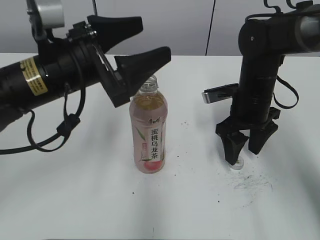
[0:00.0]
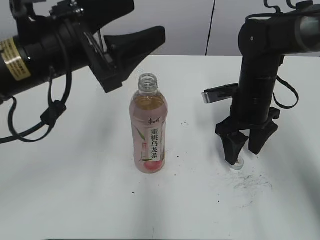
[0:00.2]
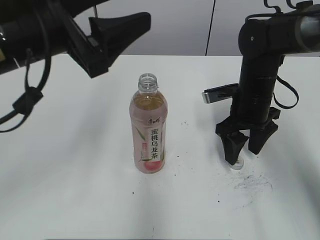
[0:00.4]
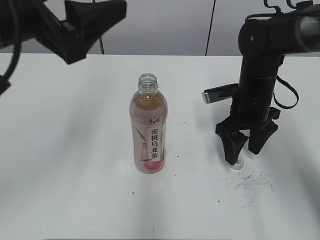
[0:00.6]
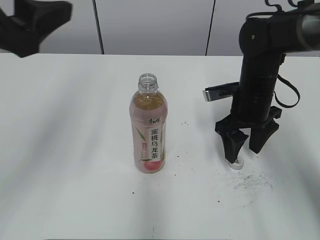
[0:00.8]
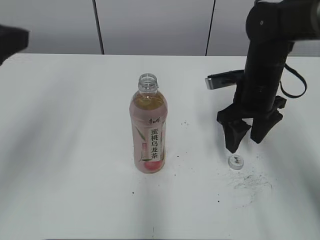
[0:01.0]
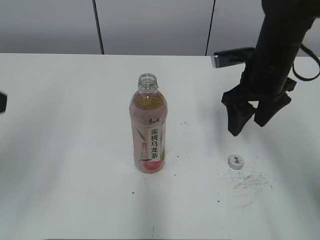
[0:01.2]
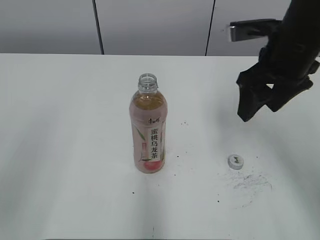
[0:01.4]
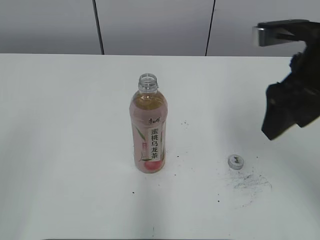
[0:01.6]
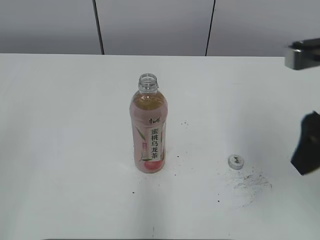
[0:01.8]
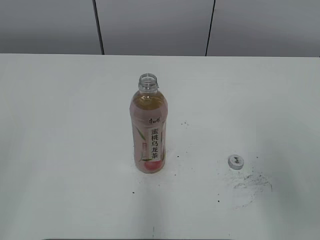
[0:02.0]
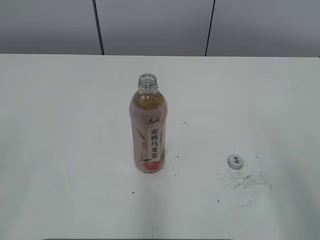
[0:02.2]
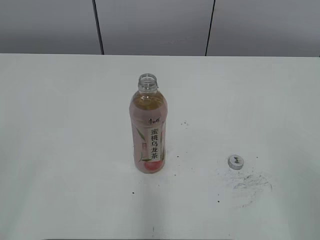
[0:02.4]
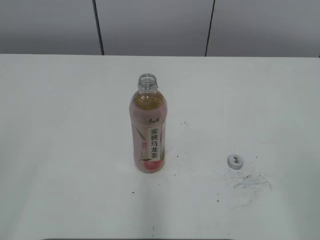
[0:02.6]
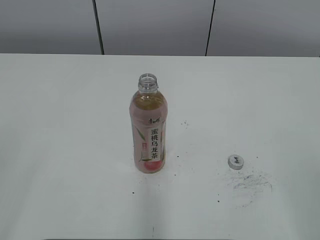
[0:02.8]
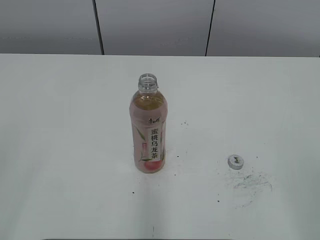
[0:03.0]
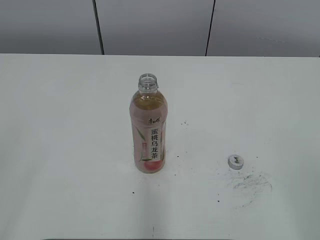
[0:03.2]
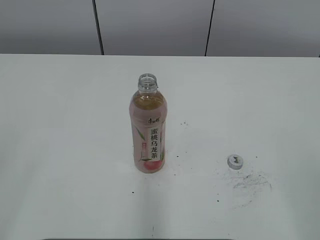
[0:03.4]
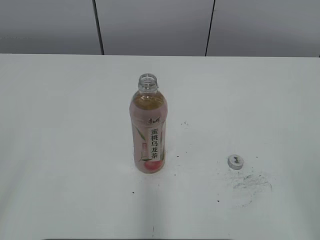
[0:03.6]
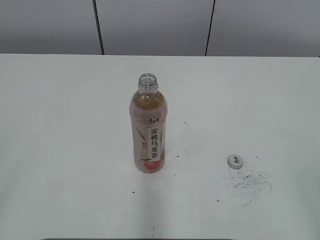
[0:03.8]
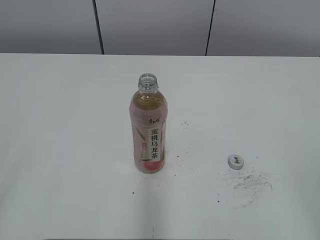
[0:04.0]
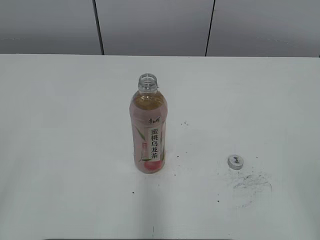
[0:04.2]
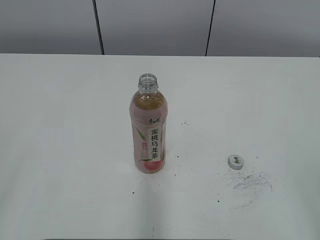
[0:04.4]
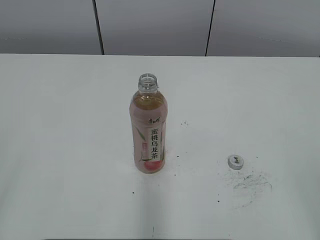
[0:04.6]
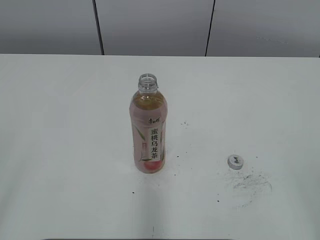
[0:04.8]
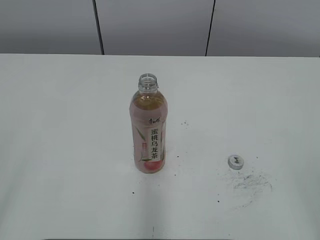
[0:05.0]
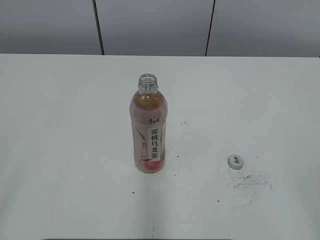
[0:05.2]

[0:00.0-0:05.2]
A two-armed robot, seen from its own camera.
0.0 to 1.8 s: The left gripper shifts about 30 cm backward, to the left and upward. The right gripper moves upward and backward, some 20 cm.
1.8 to 3.4 s: The right gripper is displaced backward by roughly 20 cm.

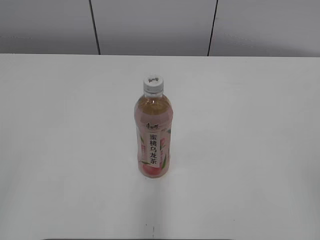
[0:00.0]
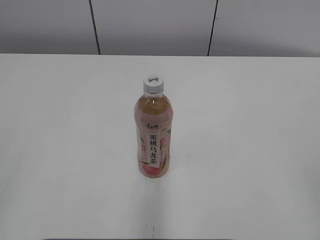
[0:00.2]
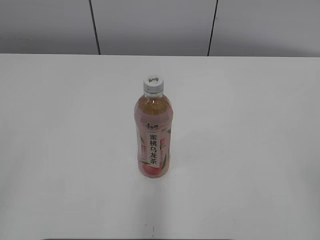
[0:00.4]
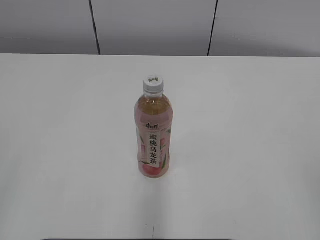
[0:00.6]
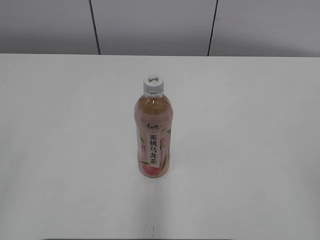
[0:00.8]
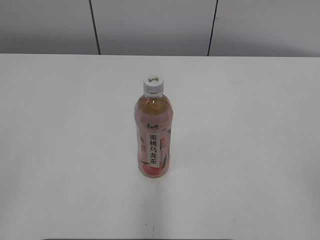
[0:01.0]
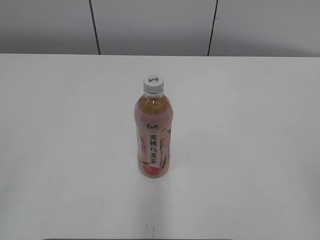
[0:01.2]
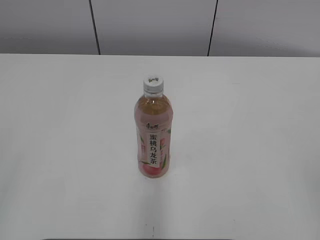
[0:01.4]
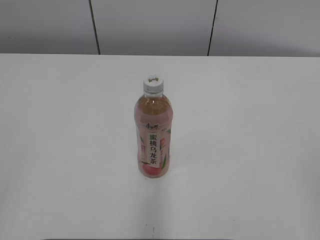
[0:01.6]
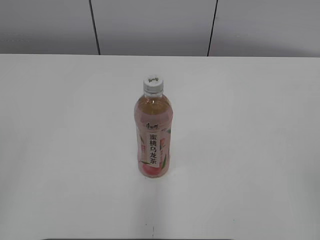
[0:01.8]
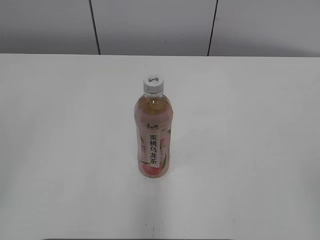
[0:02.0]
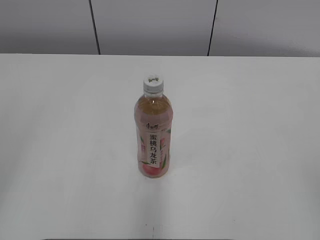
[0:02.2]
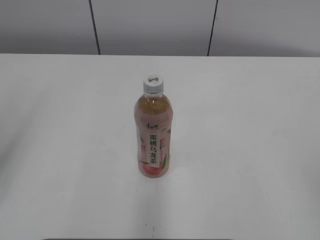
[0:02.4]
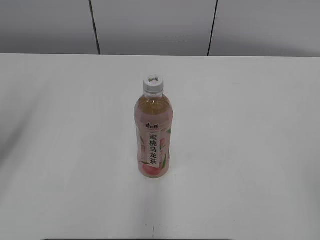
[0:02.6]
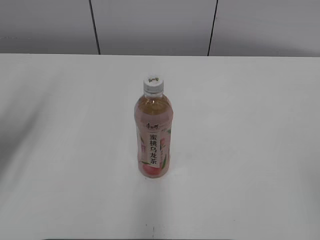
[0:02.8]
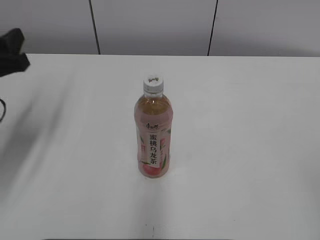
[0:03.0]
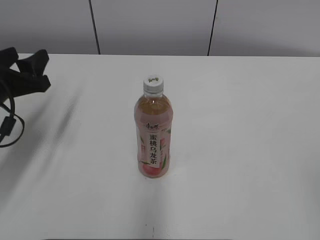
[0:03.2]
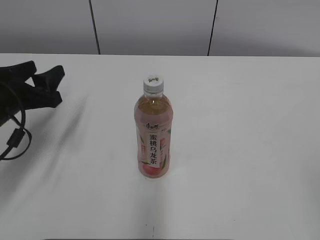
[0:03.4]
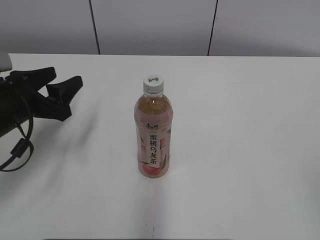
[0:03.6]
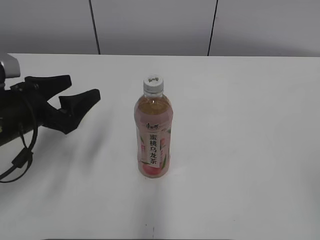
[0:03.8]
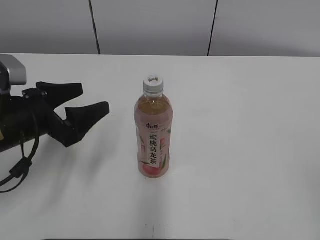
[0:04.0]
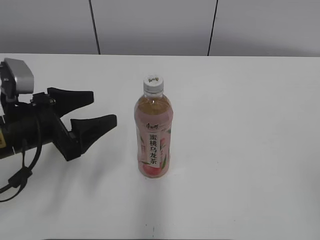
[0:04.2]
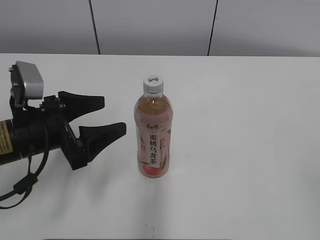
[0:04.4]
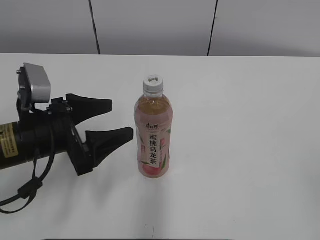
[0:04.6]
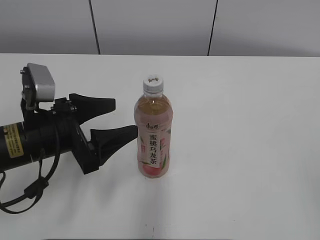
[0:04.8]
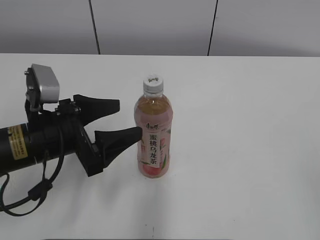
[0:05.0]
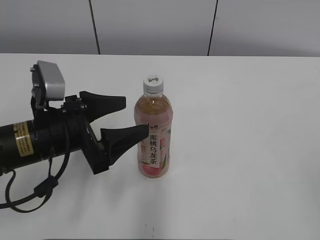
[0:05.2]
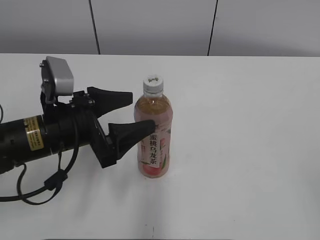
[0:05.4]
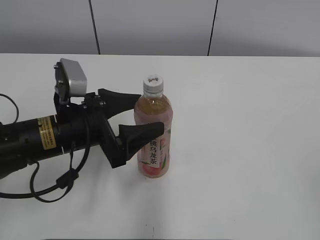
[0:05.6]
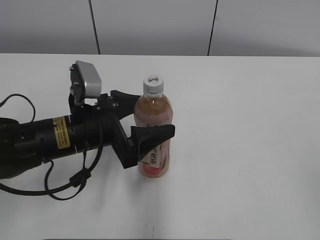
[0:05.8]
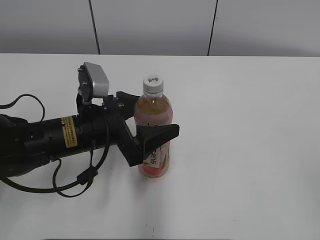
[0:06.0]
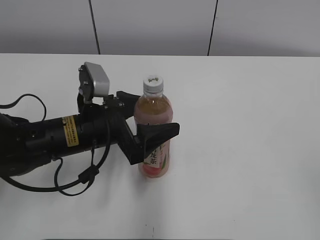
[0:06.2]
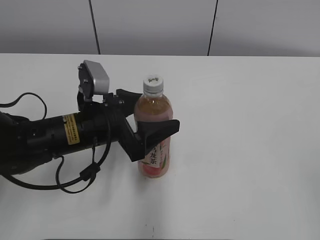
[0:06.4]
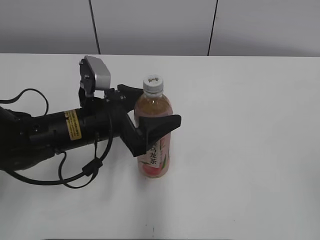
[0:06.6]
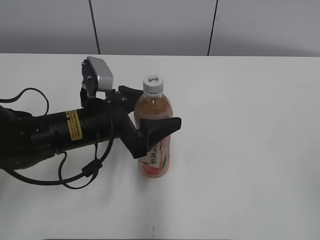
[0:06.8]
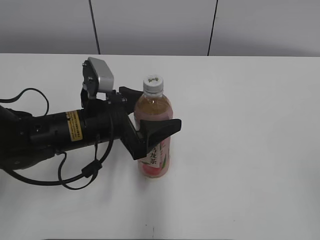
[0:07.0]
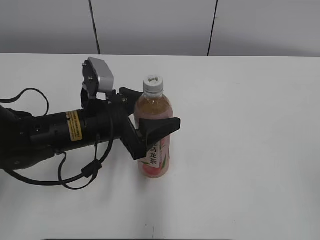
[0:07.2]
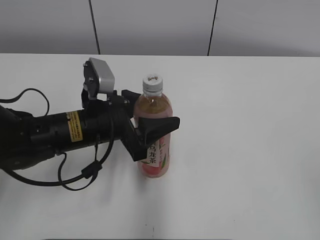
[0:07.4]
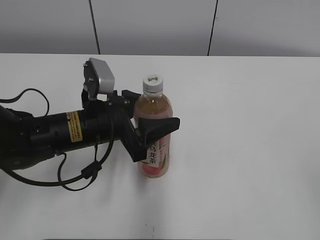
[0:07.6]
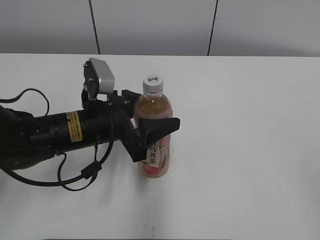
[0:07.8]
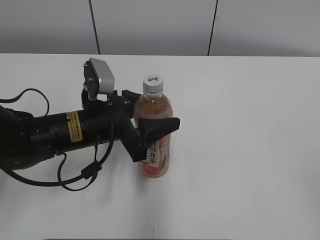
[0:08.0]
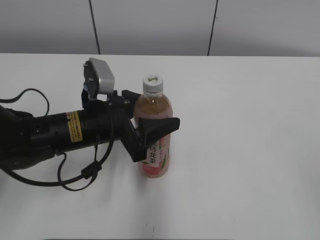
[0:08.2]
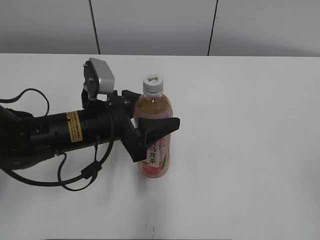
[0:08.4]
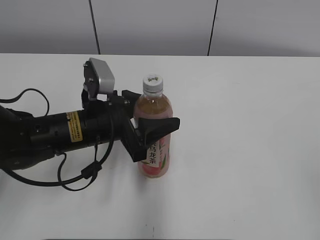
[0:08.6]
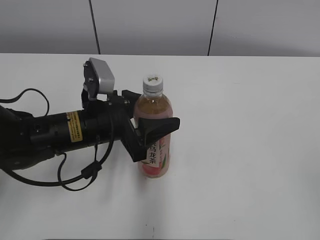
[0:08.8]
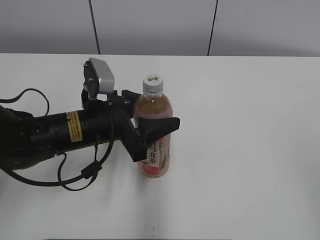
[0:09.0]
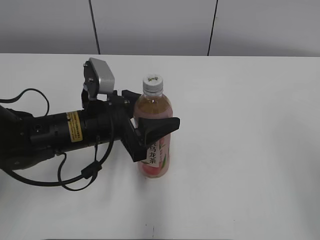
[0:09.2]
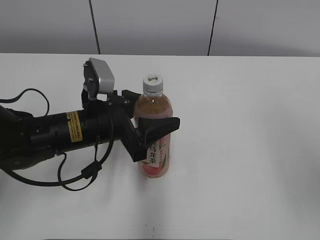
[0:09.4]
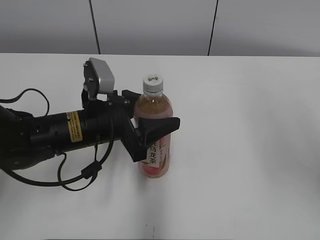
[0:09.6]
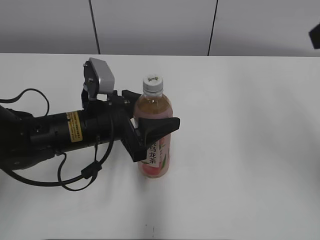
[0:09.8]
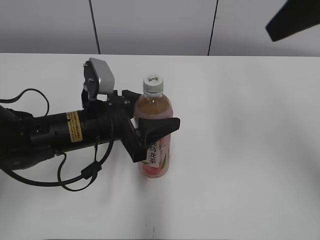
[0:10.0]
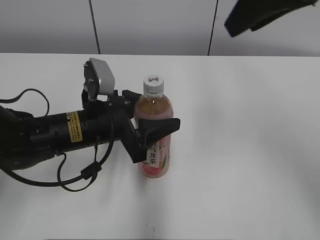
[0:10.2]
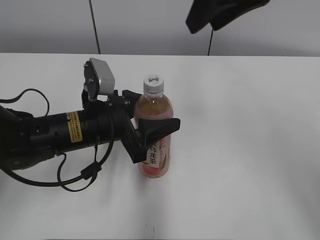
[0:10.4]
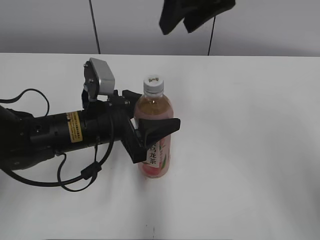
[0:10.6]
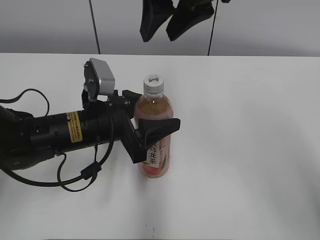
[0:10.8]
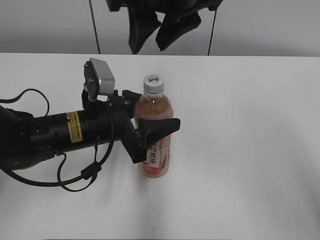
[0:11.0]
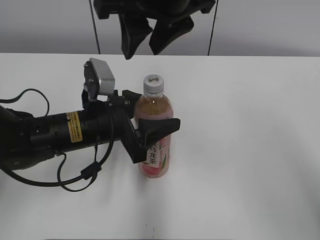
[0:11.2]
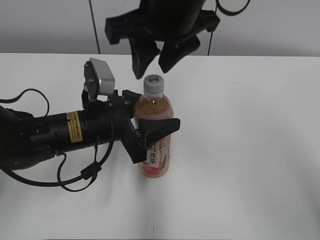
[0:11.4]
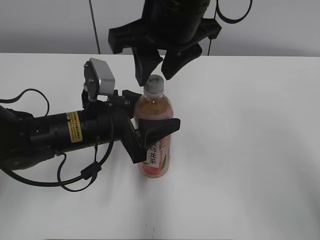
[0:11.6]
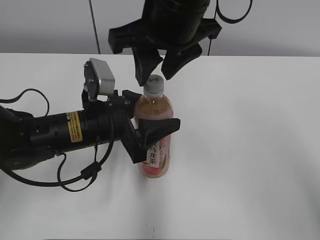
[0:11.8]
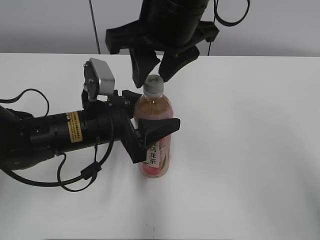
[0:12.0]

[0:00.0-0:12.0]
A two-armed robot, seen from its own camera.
Step, 0.0 to 7.6 s: Grasp the bottle and move it to the center of the table with the left gripper.
1.6 to 3.0 s: The left gripper shifts approximately 30 cm forward.
3.0 to 4.4 s: The left gripper moves to the right and downward, about 10 cm, and opens its fingers.
4.4 to 6.0 s: The left gripper is displaced to the right by roughly 10 cm.
6.0 to 7.6 s: The left gripper closes up.
9.0 to 10.4 s: The right gripper is displaced forward and to the left by approximately 35 cm.
10.4 to 12.0 s: The right gripper heads to the left and downward, covering about 10 cm.

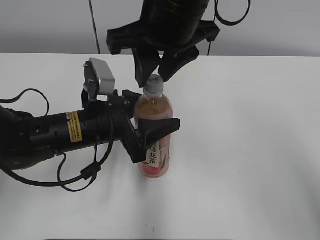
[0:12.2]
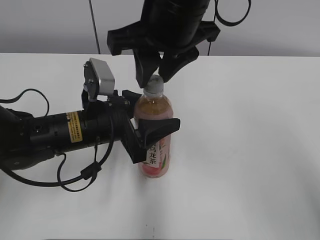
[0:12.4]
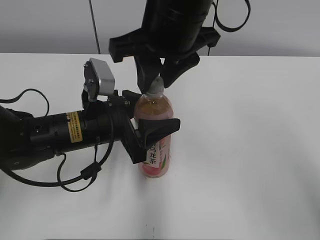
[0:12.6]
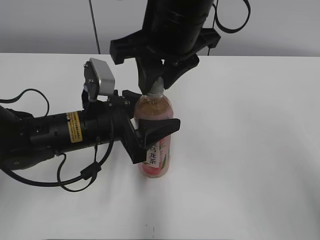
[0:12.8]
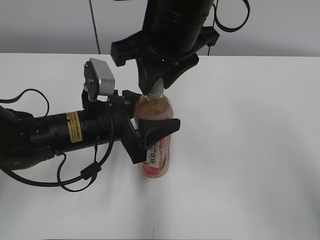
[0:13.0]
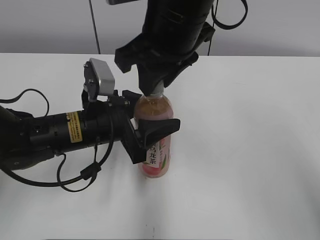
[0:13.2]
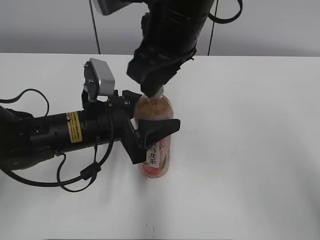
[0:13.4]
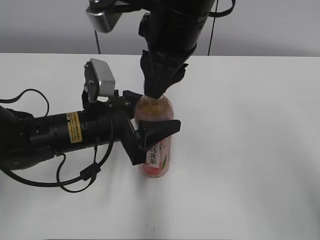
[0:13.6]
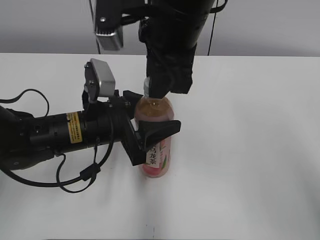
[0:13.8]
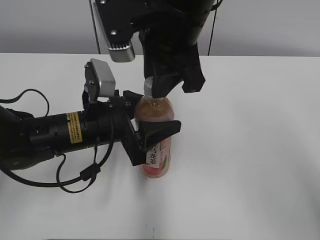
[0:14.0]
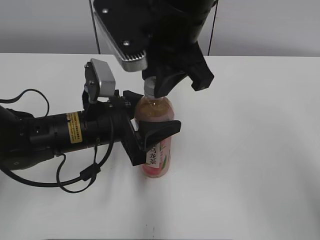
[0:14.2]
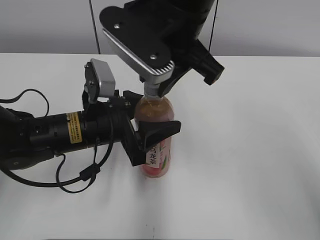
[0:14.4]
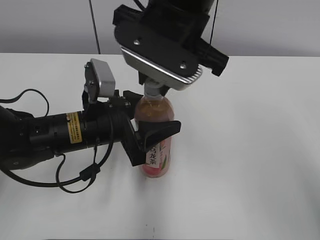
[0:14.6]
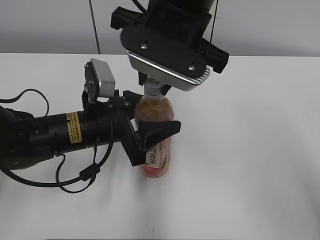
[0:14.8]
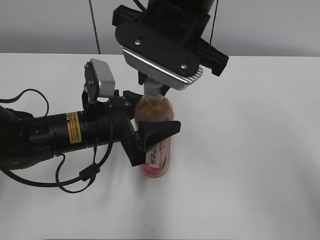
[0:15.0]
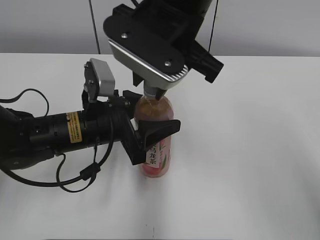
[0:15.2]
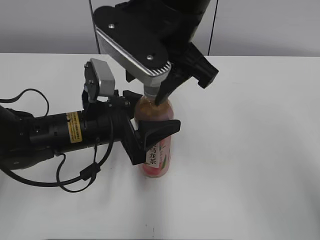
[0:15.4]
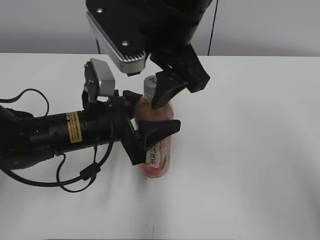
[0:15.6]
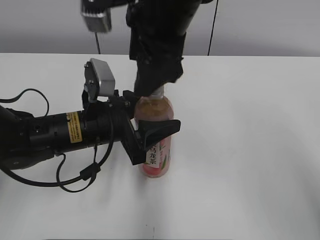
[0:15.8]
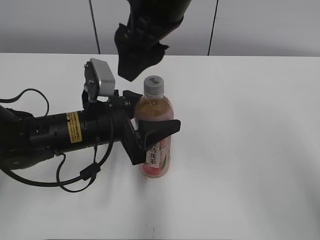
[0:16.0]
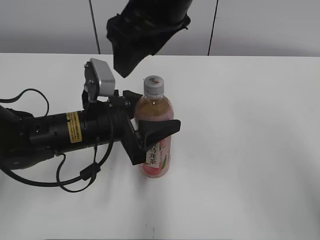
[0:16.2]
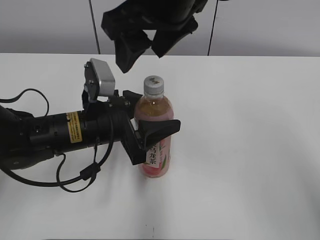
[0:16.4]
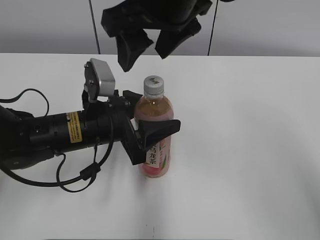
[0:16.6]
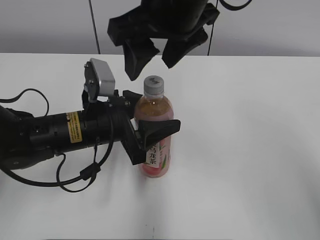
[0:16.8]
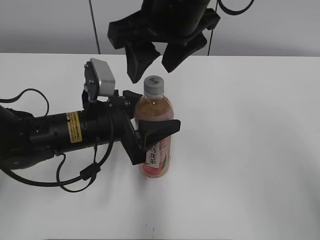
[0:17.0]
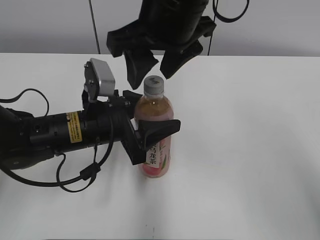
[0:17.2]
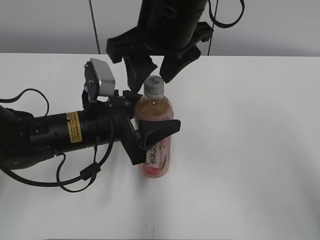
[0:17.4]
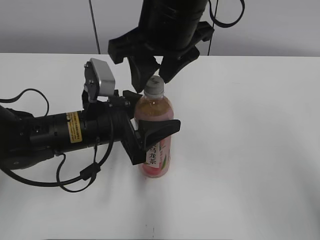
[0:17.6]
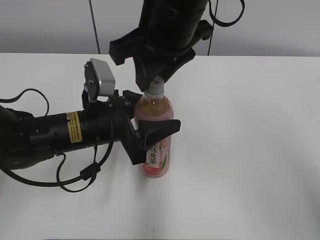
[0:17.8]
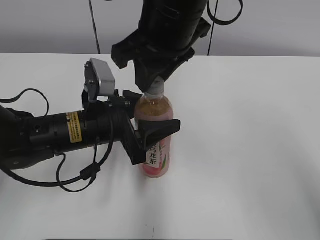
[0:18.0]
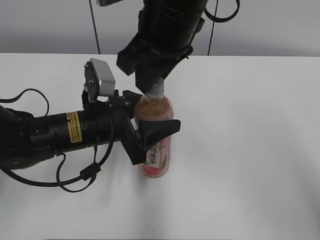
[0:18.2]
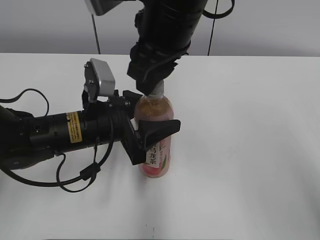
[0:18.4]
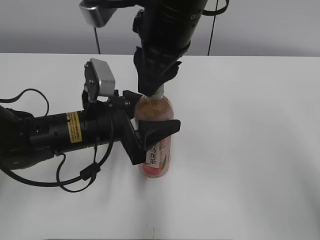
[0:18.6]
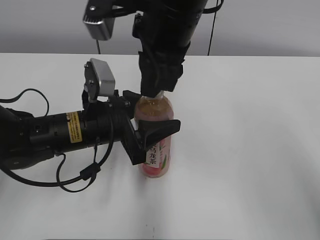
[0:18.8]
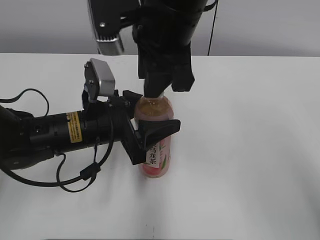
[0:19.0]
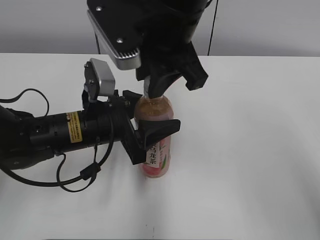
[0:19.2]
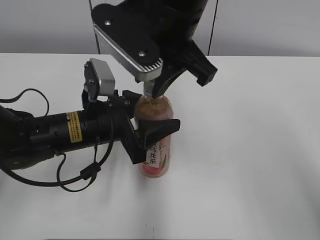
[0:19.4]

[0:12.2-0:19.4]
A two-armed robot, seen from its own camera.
15.0 to 16.6 s: The right gripper opens up.
16.6 to 18.0 s: The right gripper closes its fingers.
